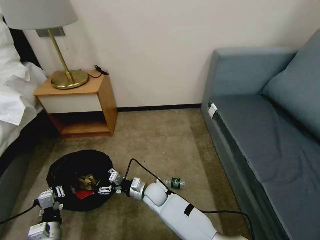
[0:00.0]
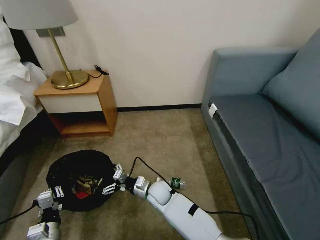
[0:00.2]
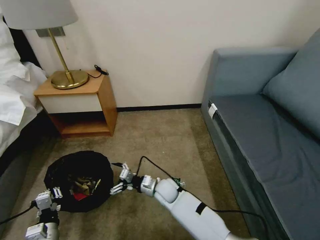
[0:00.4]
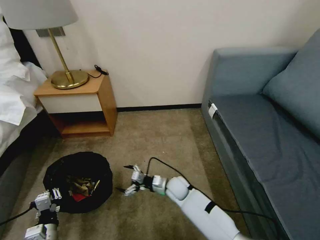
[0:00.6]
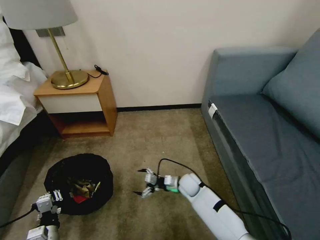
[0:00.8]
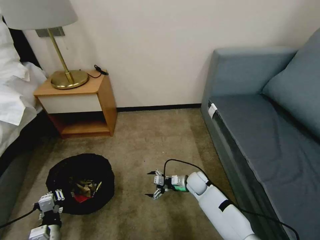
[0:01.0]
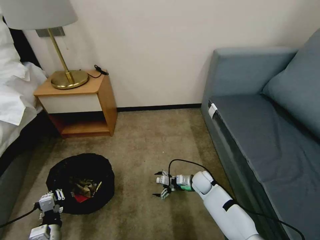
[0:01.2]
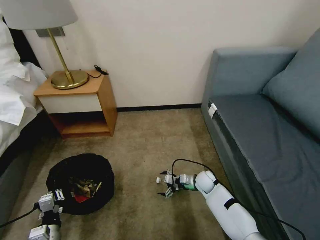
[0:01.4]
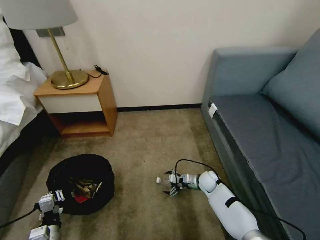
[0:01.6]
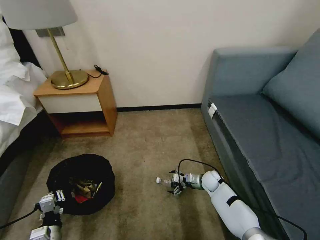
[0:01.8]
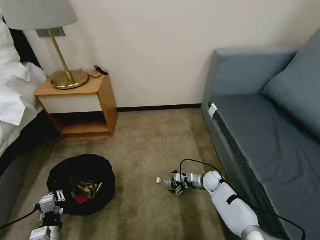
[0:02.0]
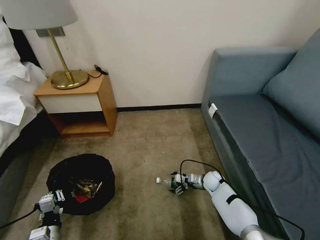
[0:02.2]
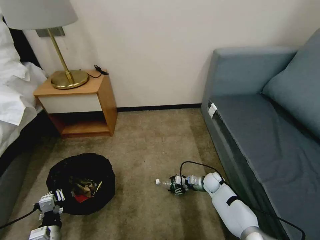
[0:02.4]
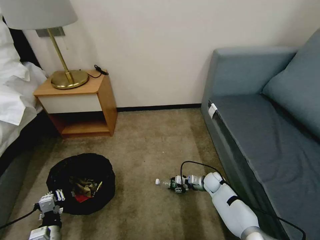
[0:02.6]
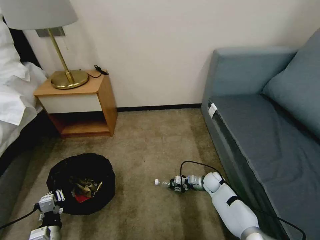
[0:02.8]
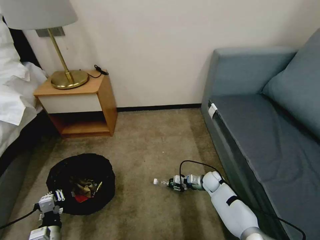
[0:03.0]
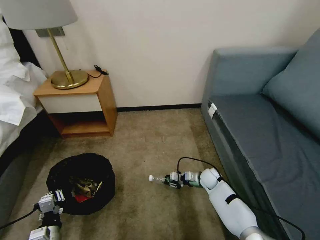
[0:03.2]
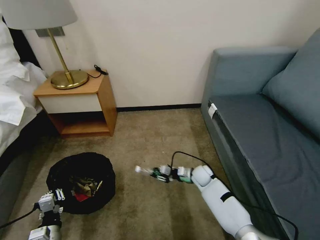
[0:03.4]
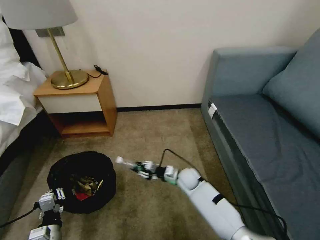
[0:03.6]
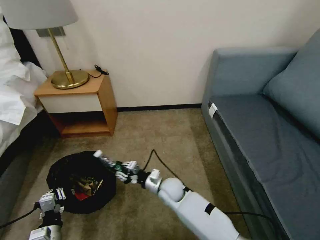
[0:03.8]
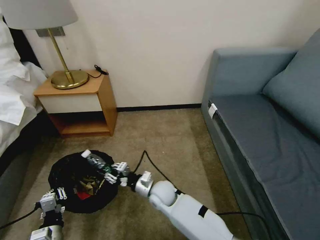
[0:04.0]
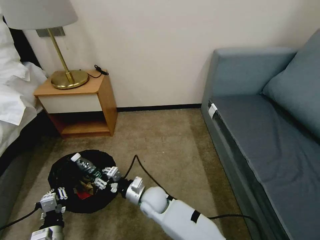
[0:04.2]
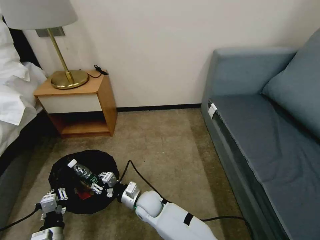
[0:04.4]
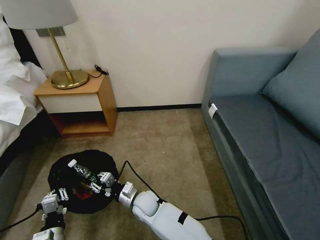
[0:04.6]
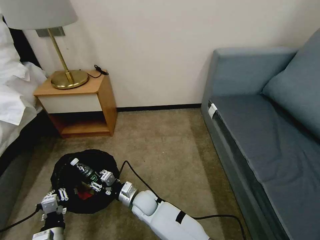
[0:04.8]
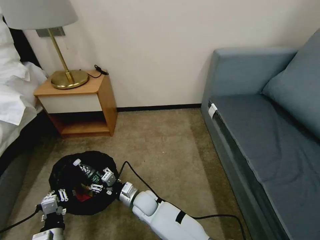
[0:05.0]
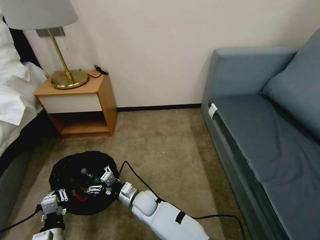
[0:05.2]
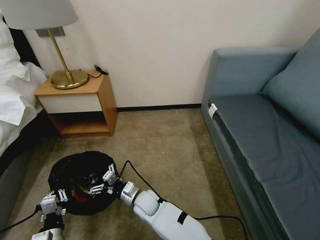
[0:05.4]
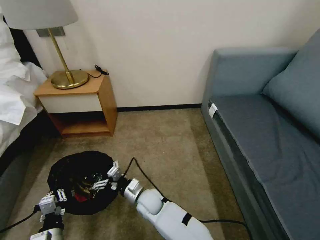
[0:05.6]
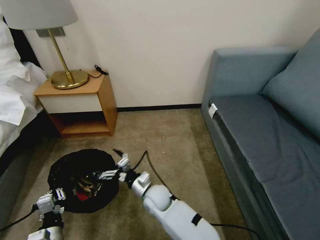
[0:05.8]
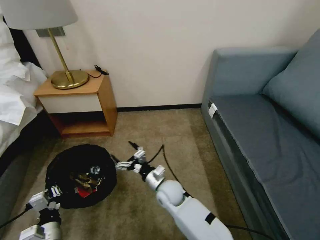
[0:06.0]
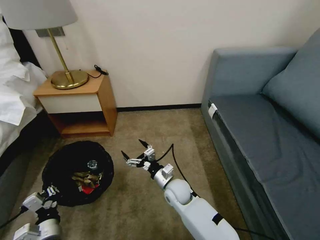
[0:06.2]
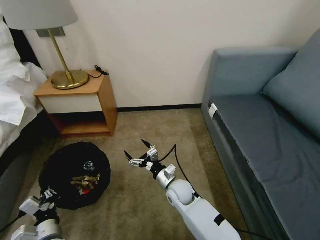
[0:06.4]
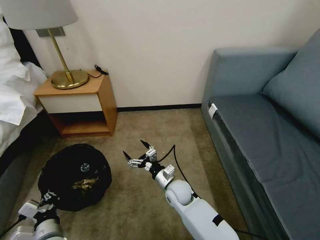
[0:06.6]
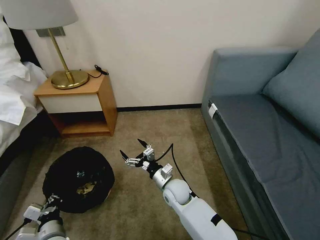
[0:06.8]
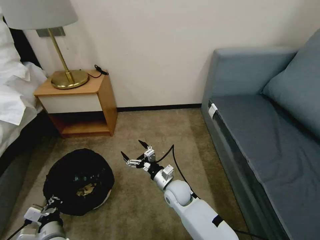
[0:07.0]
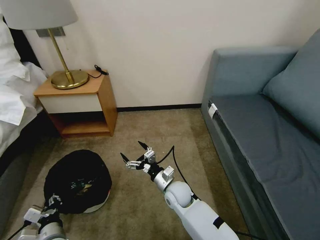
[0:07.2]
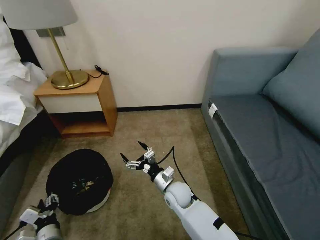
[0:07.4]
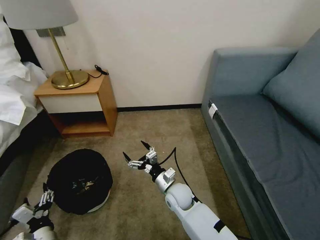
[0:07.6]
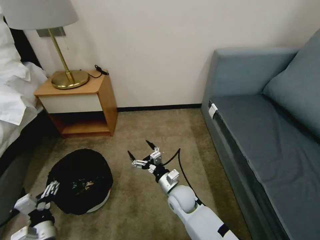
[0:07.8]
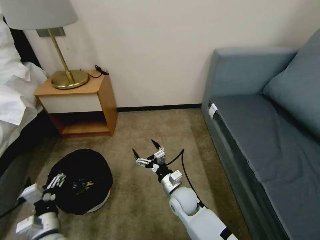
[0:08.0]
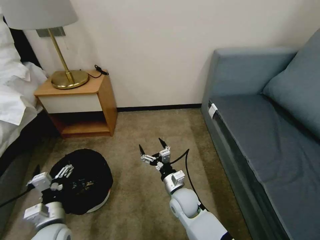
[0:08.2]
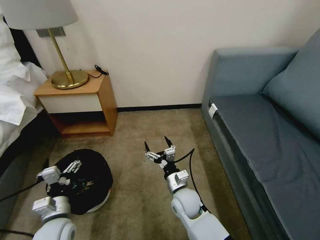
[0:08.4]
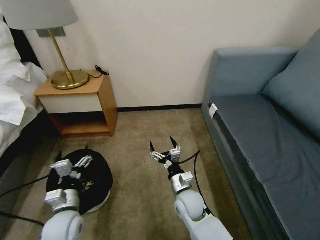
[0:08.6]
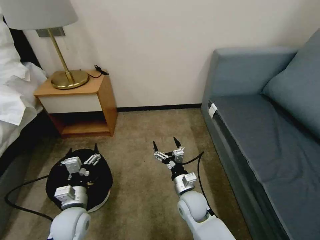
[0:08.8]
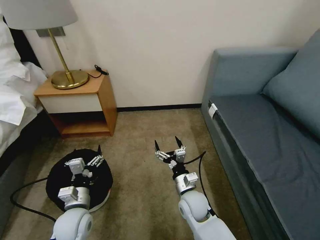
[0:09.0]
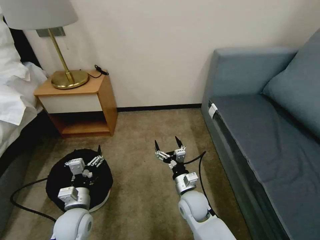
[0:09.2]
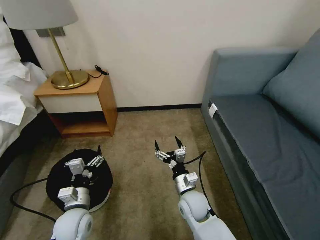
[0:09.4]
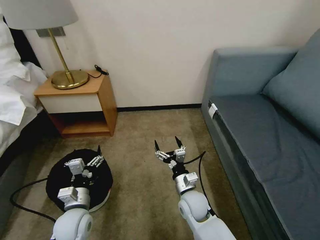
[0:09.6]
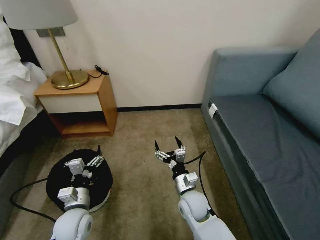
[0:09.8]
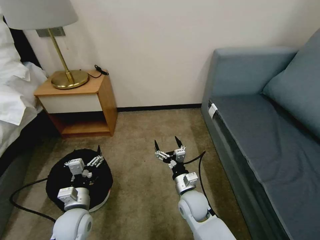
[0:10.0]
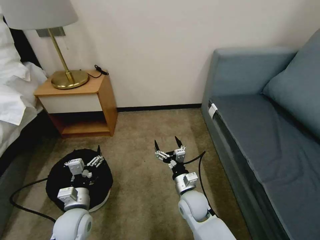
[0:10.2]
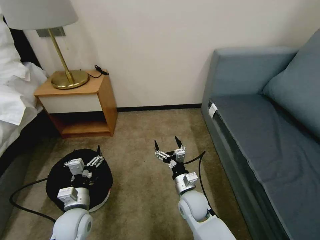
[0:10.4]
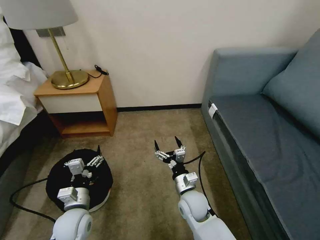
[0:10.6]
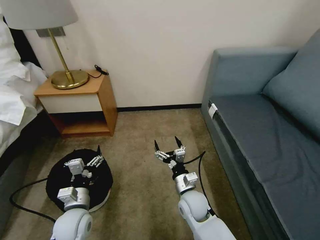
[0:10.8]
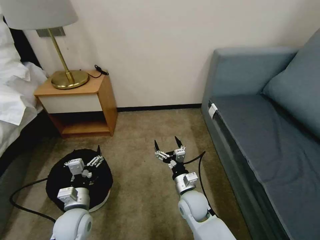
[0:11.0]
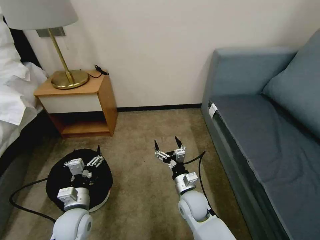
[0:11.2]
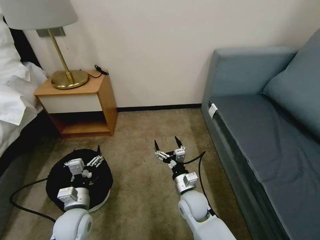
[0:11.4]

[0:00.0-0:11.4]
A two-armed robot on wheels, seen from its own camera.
Task of the whole recording: Pick up the trash bin, then pick up the garbage on the floor and place it into the trash bin.
0:00.0 to 0:01.4: The right gripper shifts roughly 25 cm to the right.
0:01.4 to 0:02.8: The right gripper moves approximately 5 cm, and closes its fingers.
0:02.8 to 0:04.2: The right gripper moves to the left and backward, roughly 30 cm.
0:04.2 to 0:05.6: The right gripper opens up.
0:05.6 to 0:07.2: The right gripper is displaced to the right by roughly 10 cm.
0:07.2 to 0:08.6: The left gripper is displaced forward and upward by approximately 10 cm, and opens; the right gripper moves about 5 cm.
0:08.6 to 0:10.0: The grippers stay close to where they were, moving slightly.
0:10.0 to 0:11.4: Neither gripper changes place.

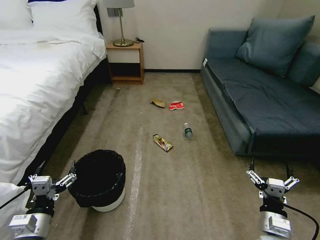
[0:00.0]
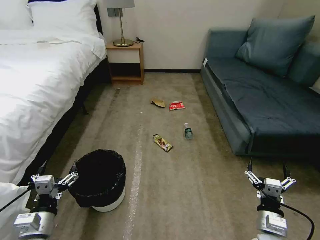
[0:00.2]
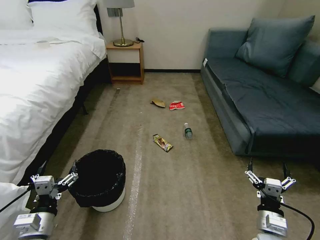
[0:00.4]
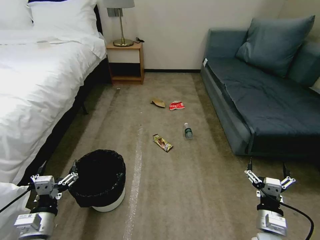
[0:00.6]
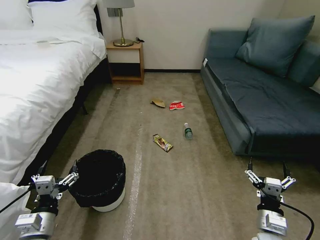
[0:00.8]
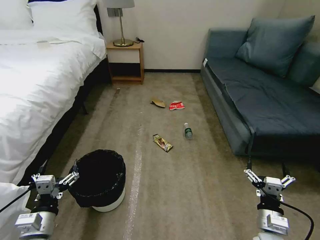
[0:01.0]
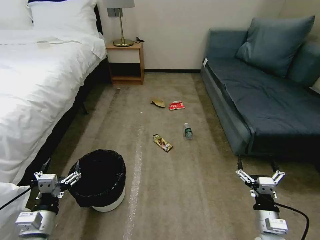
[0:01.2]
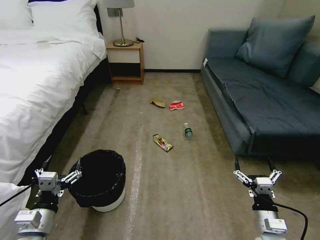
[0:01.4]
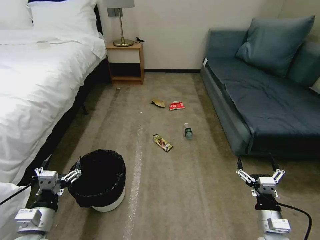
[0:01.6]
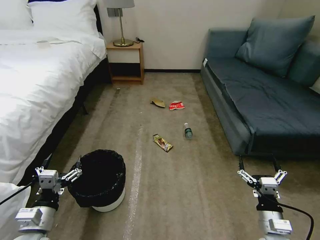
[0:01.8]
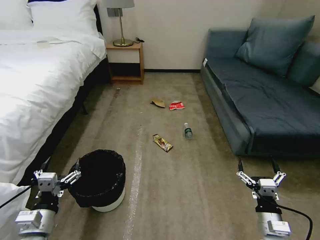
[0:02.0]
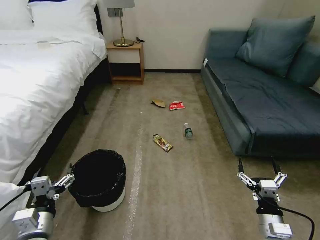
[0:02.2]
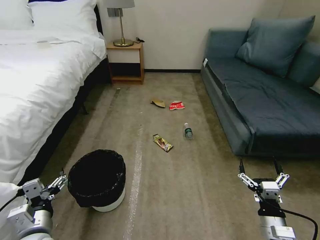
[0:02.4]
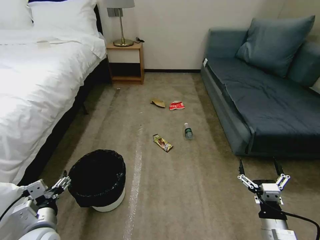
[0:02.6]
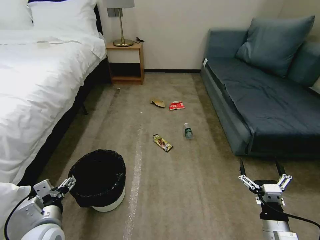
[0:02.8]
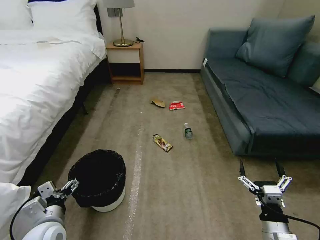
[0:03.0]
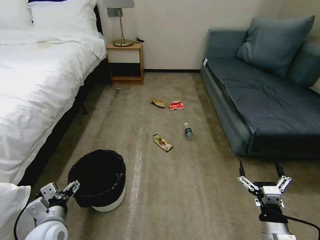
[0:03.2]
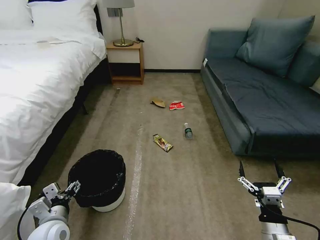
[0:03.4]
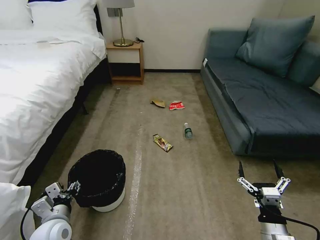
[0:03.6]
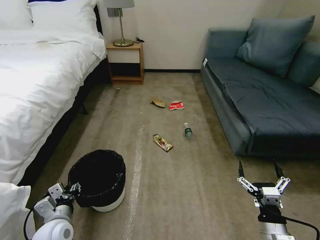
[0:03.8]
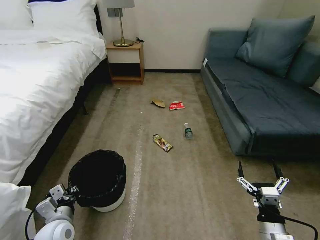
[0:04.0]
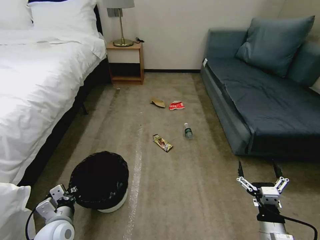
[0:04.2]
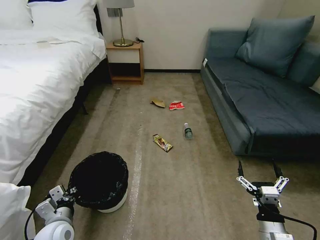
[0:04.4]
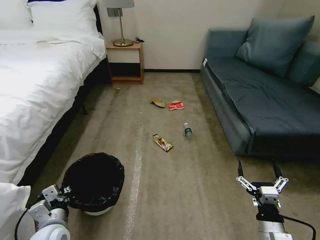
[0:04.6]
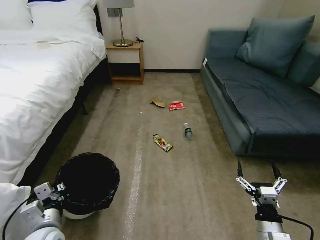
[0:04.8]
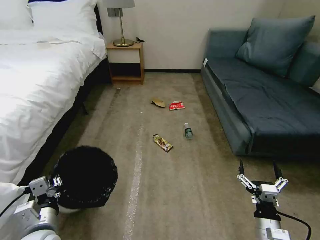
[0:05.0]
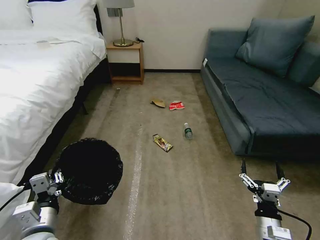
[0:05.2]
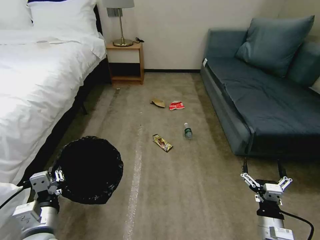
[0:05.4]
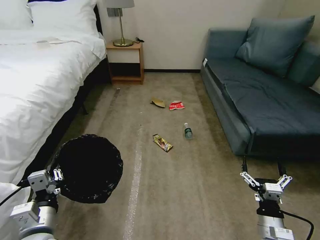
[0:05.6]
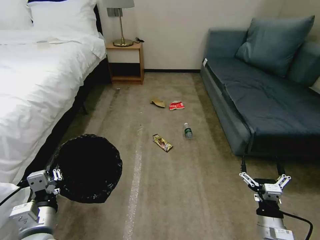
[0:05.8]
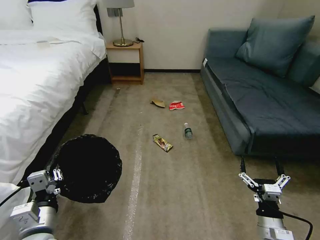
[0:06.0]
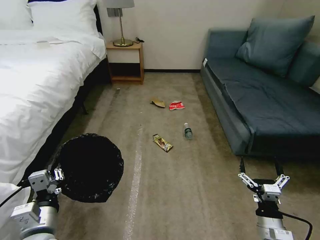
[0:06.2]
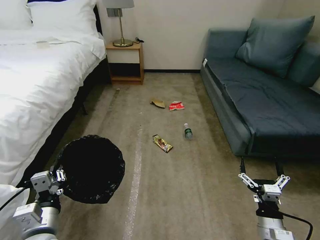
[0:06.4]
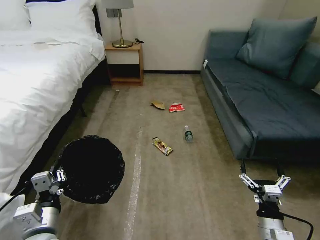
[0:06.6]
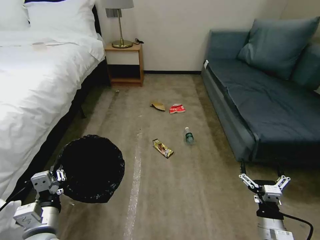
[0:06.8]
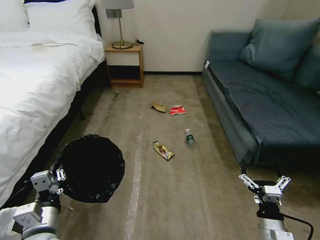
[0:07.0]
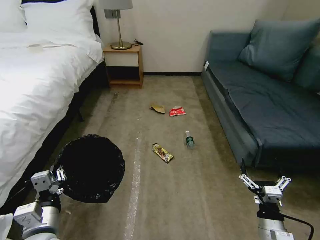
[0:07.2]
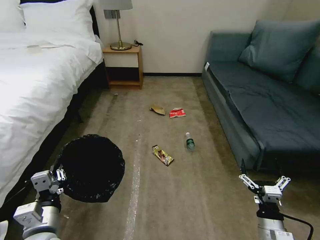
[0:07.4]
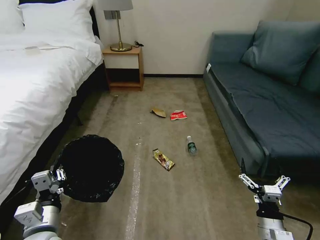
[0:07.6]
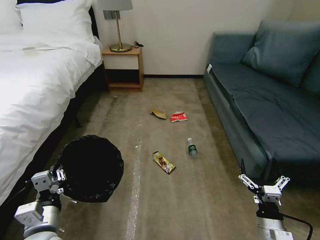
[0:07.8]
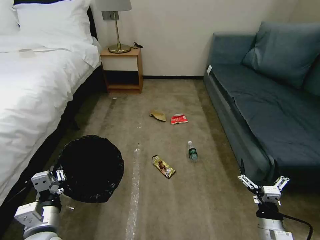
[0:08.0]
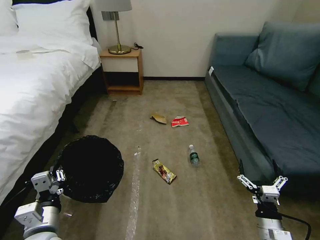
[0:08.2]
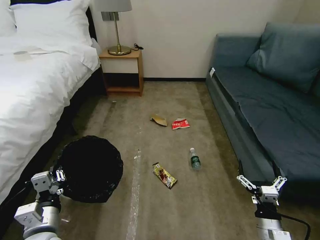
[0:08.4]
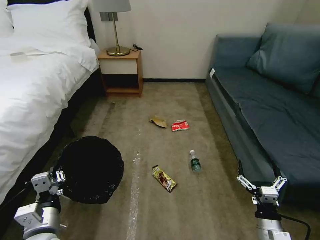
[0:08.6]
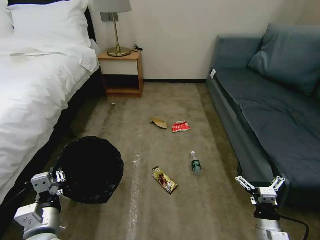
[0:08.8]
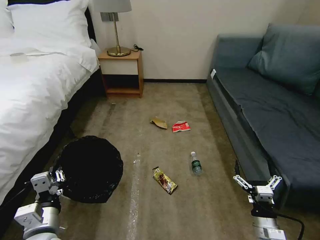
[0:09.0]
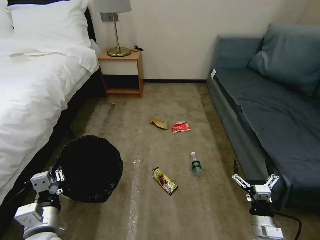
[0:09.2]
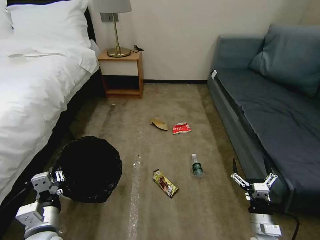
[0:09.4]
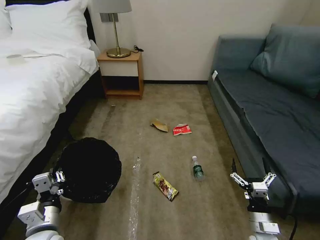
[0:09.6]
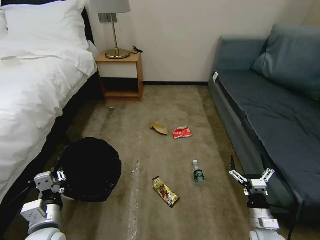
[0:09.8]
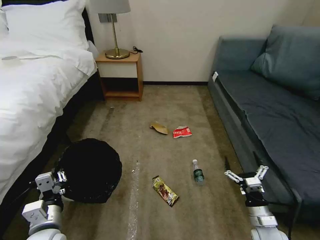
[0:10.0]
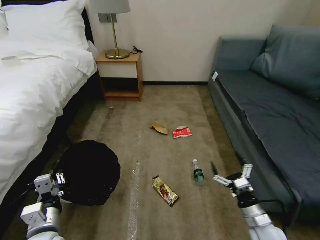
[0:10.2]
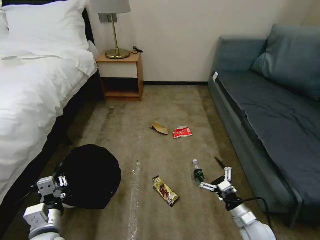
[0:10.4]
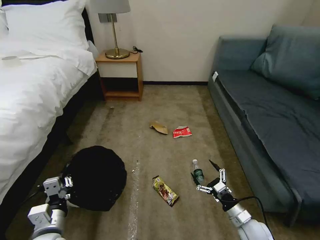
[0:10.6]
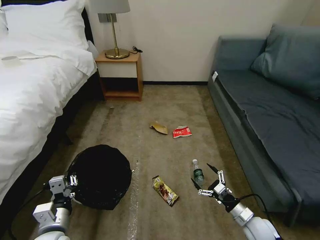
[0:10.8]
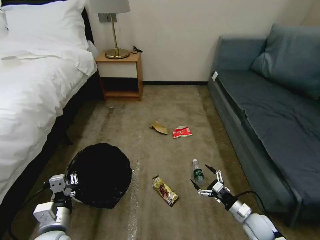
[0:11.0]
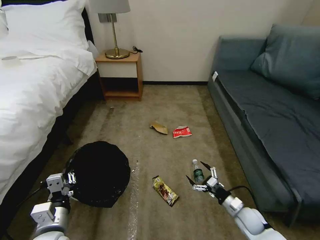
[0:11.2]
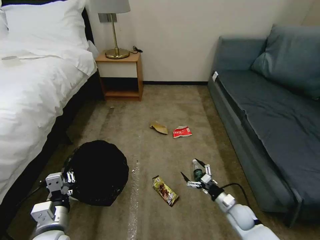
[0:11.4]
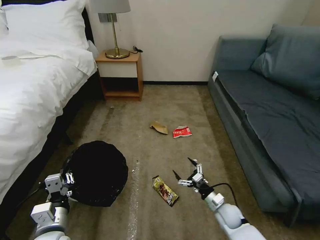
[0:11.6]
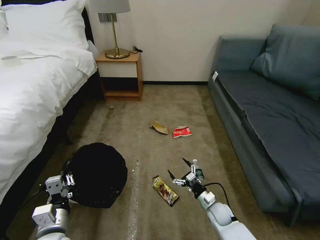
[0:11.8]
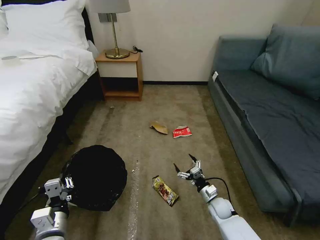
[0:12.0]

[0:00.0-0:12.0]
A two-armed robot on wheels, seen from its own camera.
Task of the whole recording: Pick up the trash bin, then pick up the garbage on the floor and place it into the trash bin.
0:03.0 to 0:04.4: The left gripper closes.
0:04.4 to 0:06.0: The left gripper is displaced upward by about 10 cm.
0:07.6 to 0:09.0: The grippers move only a little.
0:09.0 to 0:10.4: The right gripper goes roughly 5 cm forward.
0:10.4 to 0:12.0: The right gripper travels forward, downward and to the left by some 15 cm.
